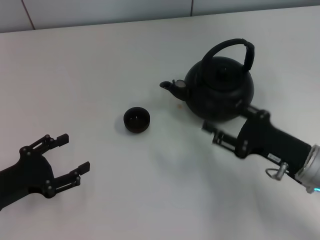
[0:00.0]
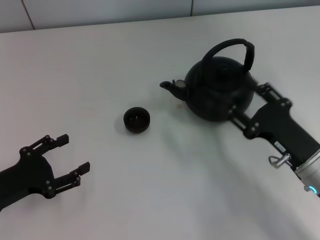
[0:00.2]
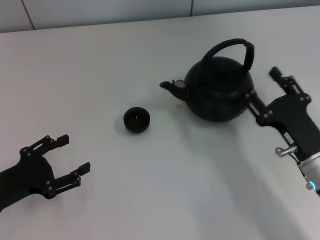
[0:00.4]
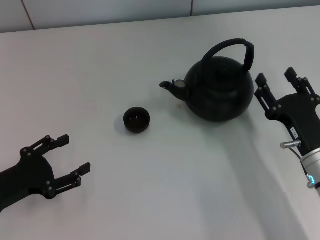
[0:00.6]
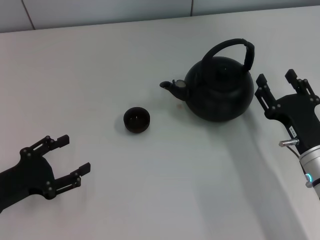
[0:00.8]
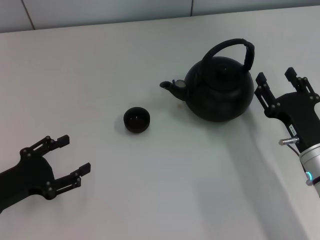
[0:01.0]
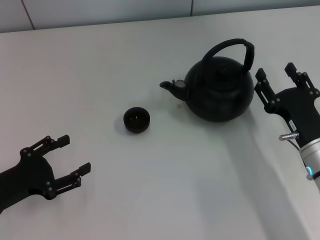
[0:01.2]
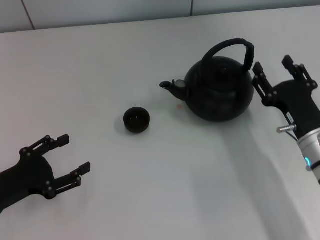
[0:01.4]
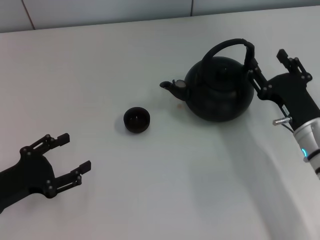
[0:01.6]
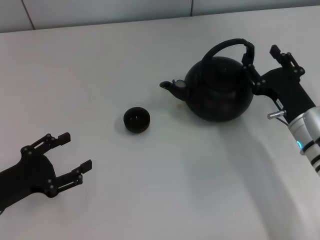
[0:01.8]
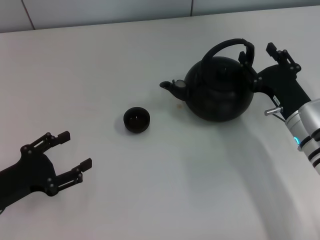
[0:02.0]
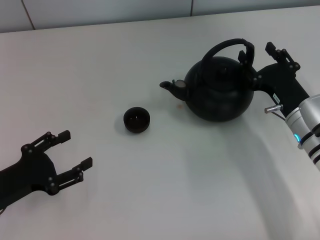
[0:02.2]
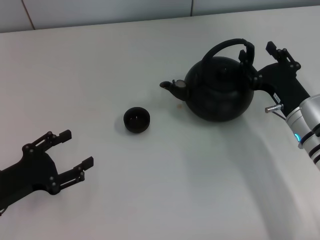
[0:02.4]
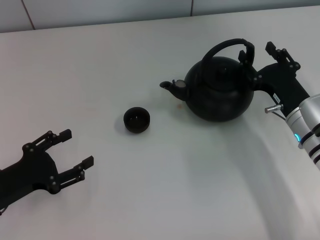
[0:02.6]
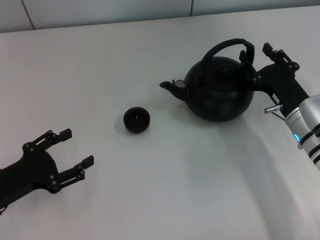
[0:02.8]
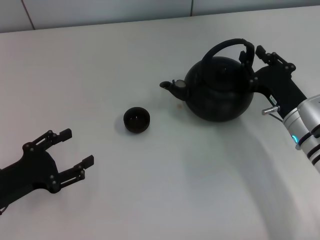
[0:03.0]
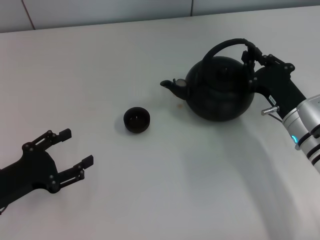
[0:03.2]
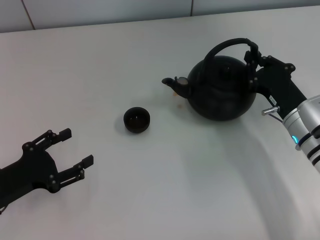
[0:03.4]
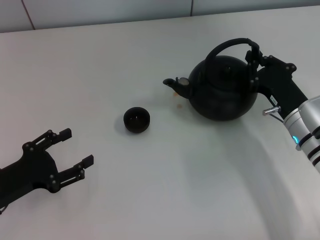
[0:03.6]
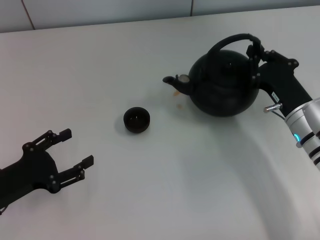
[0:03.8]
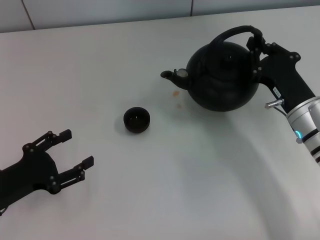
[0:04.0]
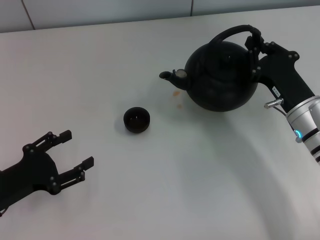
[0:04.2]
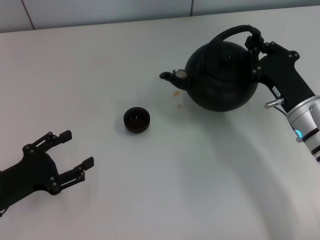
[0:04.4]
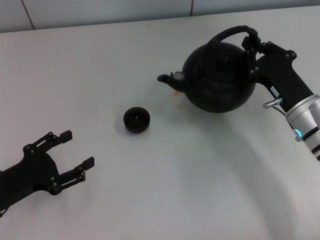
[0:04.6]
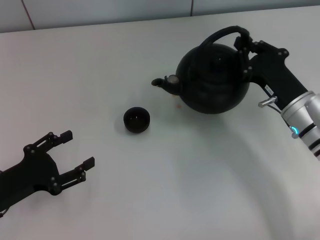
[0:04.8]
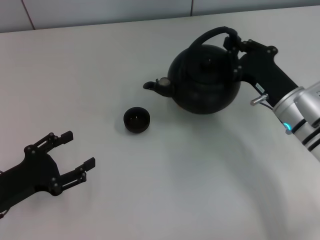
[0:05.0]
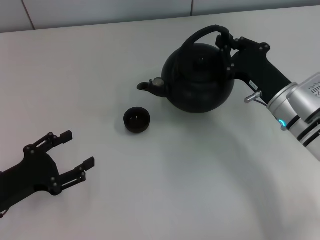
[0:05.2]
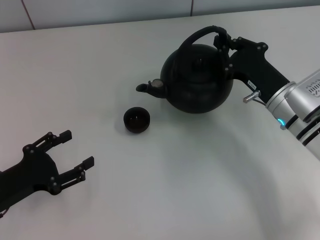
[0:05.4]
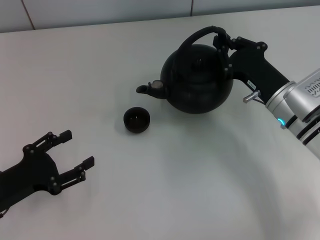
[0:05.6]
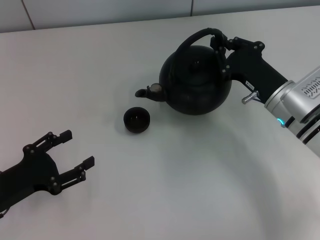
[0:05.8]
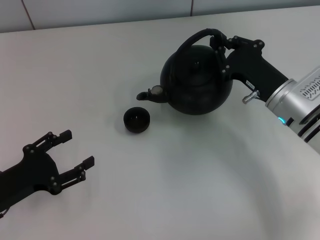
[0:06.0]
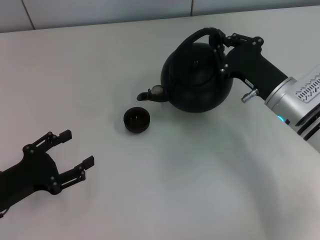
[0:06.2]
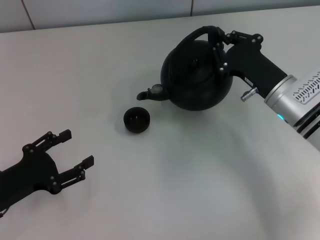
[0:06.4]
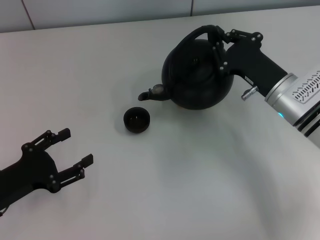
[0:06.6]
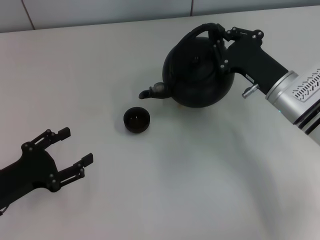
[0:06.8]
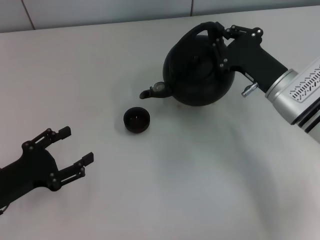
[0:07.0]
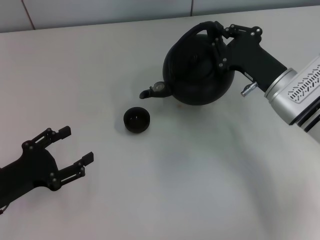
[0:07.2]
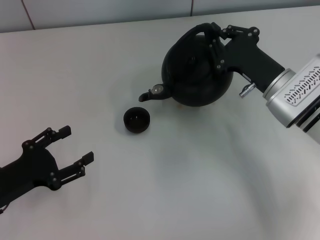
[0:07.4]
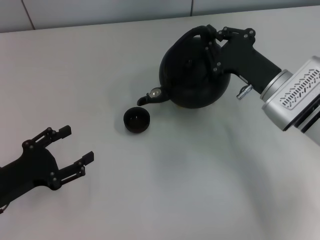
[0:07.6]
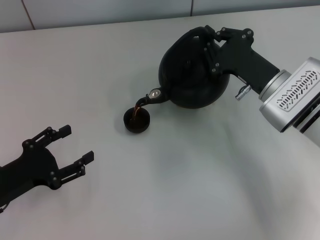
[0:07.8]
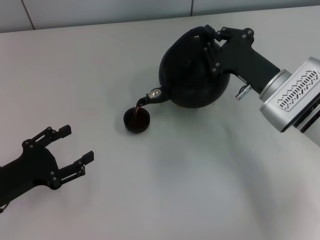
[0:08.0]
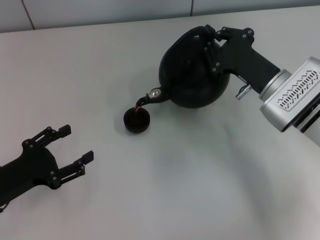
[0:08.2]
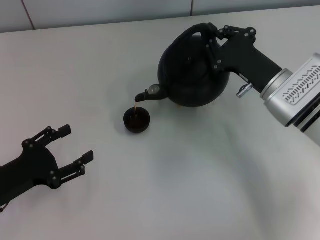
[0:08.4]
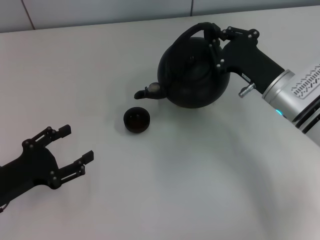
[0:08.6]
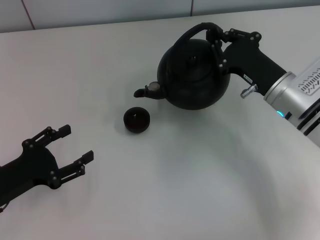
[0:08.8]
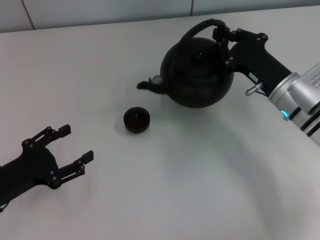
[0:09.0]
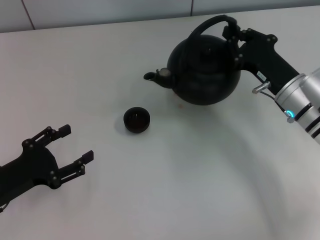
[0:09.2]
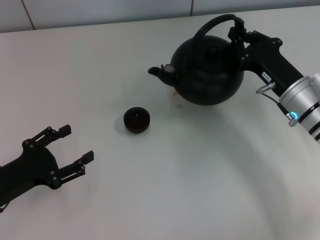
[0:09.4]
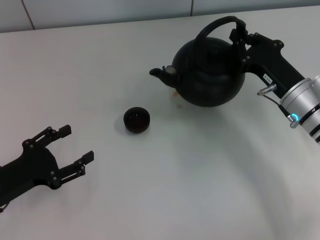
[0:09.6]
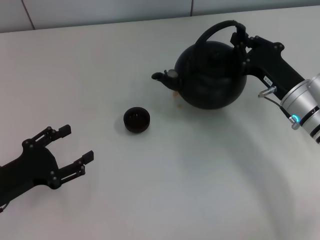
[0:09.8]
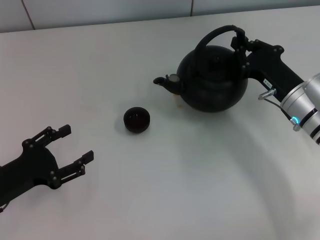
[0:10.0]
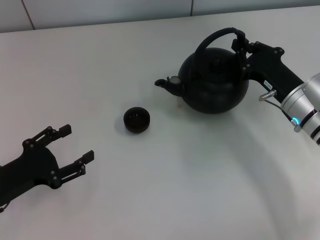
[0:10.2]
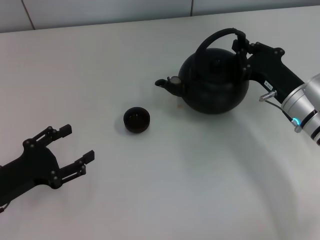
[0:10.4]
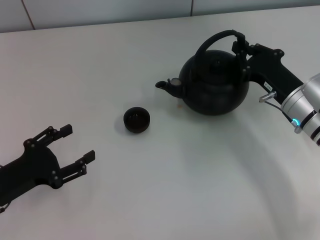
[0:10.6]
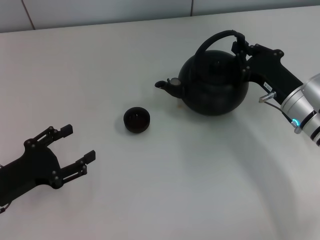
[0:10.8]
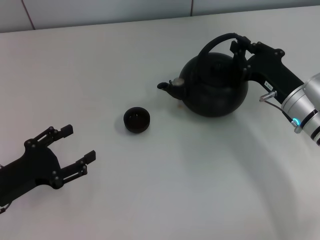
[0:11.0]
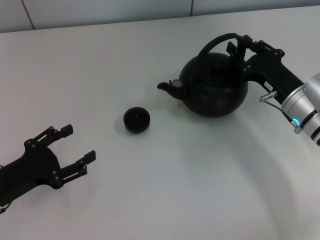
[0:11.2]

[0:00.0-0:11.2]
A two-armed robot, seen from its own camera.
Task of the whole recording: Grasp the handle of the teapot with one hand and pour tea into the teacup.
Step, 0:00.0 to 0:04.2: Pick up the teapot with the right gripper.
0:01.6 to 0:03.2: The right gripper closes its fingers.
0:03.2 to 0:04.8: The right gripper closes its fingers.
0:04.8 to 0:06.4: The grippers make only small movements.
0:06.4 to 0:08.0: The grippers stay close to where they were, moving slightly.
0:09.6 to 0:11.2: There are only small adjustments of the grippers.

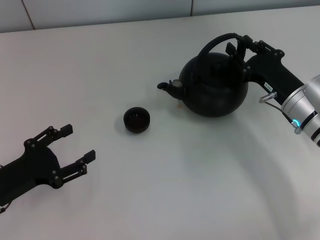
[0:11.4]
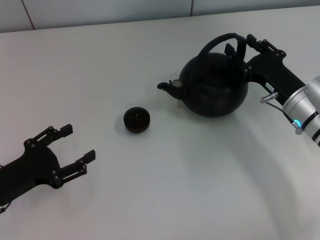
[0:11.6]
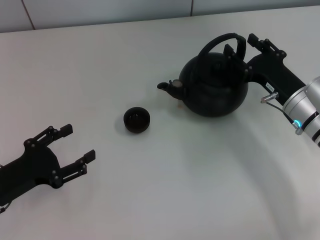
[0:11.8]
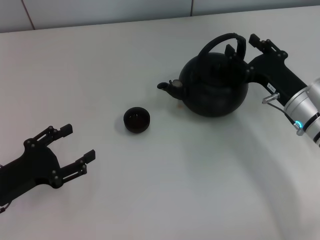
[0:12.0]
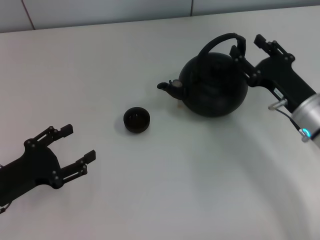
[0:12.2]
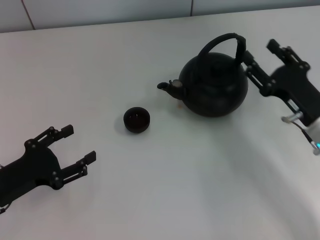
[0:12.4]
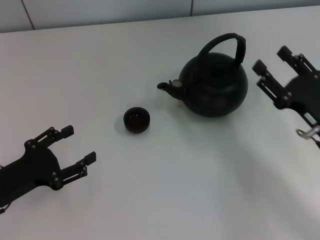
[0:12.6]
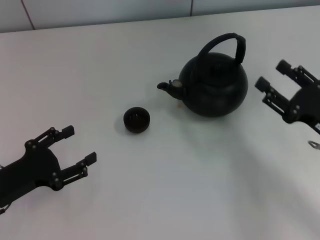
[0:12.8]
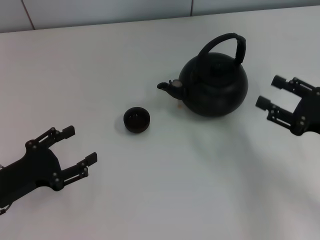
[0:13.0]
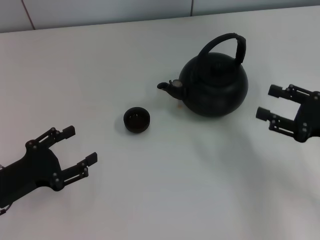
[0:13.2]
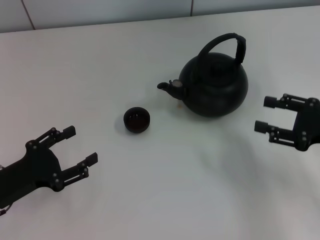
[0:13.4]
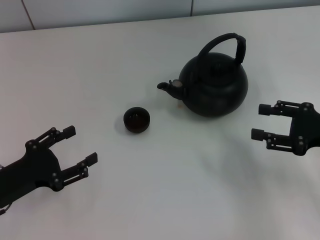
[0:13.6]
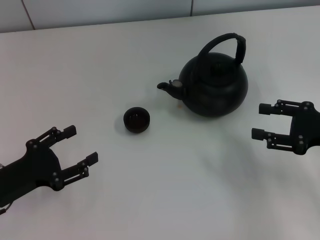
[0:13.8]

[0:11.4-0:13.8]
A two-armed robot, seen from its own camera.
Task of the whole recording: Grasp the handle of the teapot with one hand and pour tea into the teacup.
0:11.4 to 0:12.6: The right gripper goes roughly 10 cm backward, and opens.
0:12.6 to 0:13.8: The right gripper goes some 5 cm to the right.
